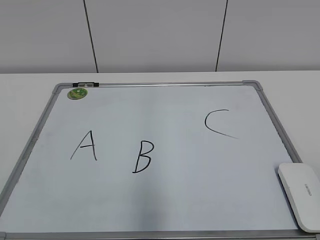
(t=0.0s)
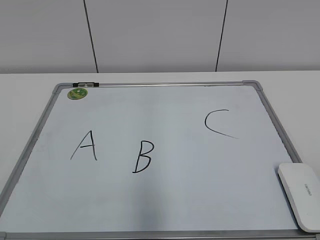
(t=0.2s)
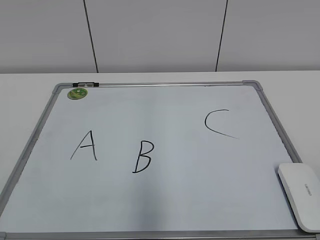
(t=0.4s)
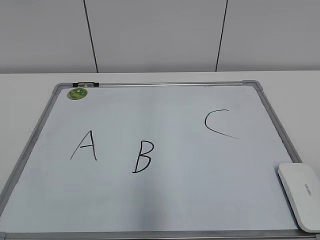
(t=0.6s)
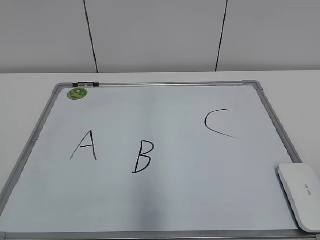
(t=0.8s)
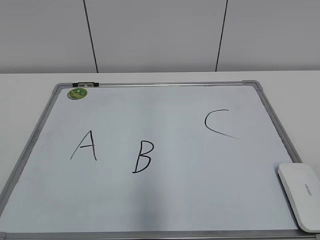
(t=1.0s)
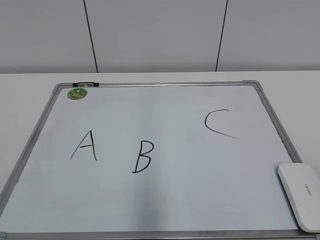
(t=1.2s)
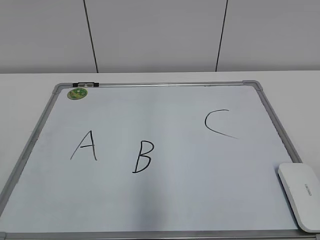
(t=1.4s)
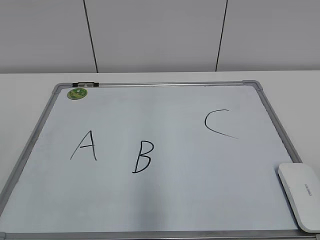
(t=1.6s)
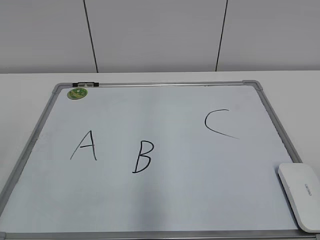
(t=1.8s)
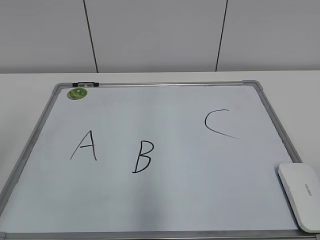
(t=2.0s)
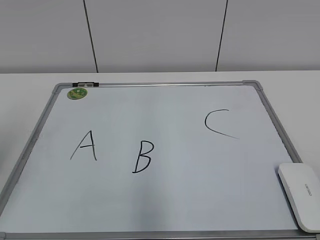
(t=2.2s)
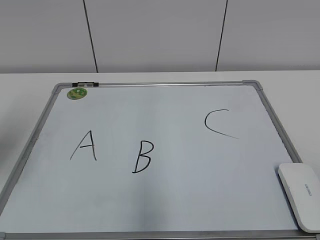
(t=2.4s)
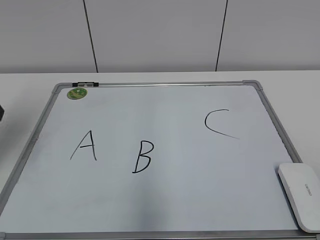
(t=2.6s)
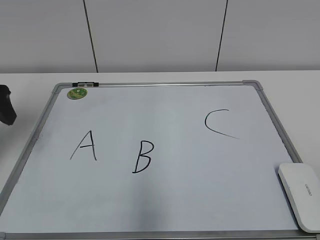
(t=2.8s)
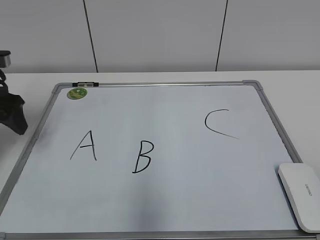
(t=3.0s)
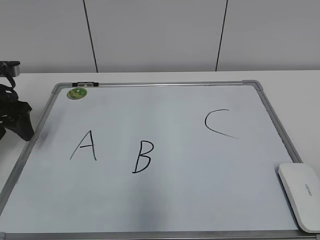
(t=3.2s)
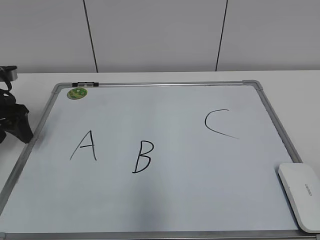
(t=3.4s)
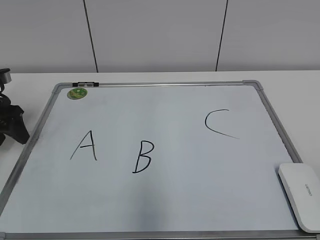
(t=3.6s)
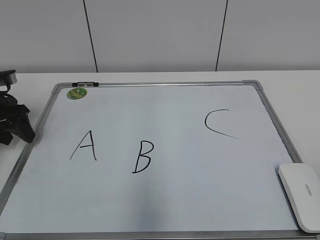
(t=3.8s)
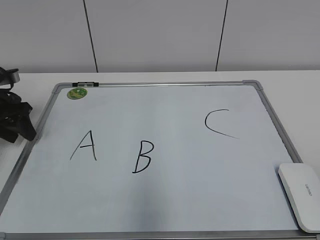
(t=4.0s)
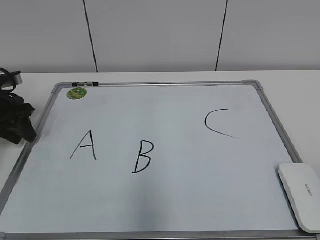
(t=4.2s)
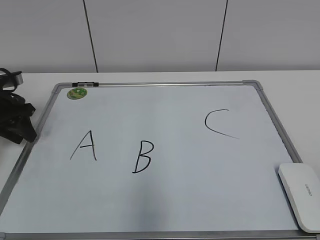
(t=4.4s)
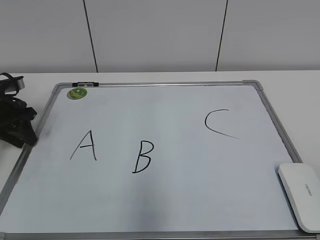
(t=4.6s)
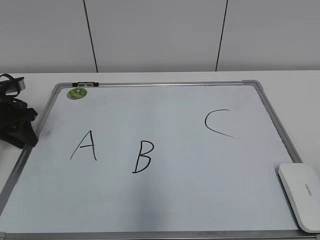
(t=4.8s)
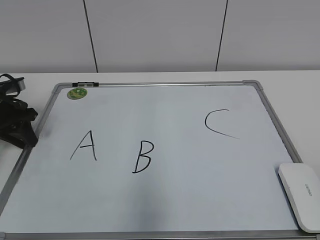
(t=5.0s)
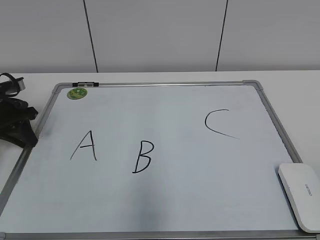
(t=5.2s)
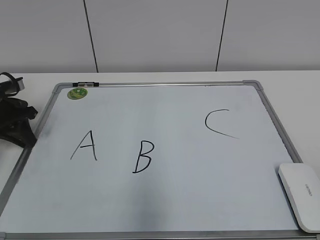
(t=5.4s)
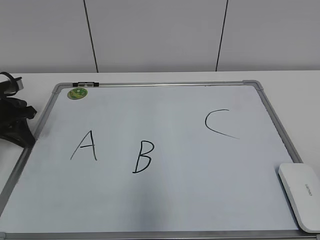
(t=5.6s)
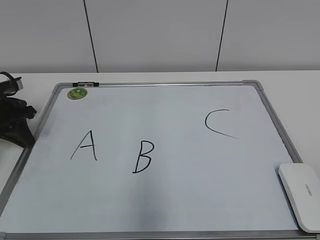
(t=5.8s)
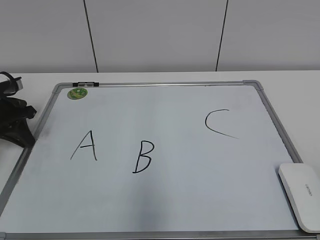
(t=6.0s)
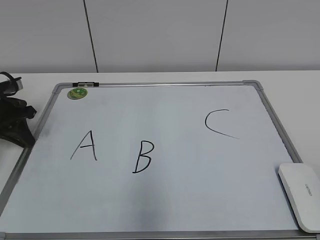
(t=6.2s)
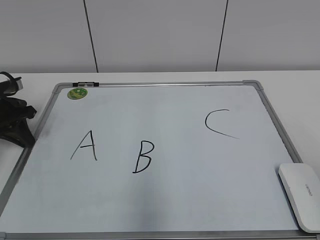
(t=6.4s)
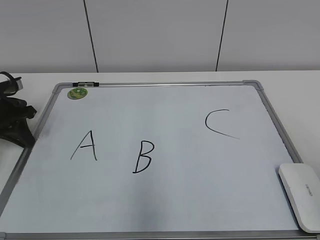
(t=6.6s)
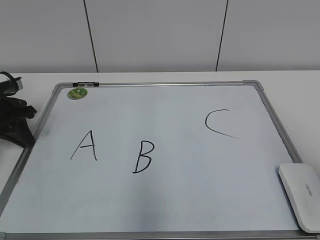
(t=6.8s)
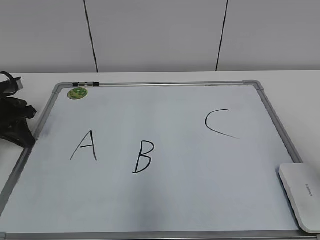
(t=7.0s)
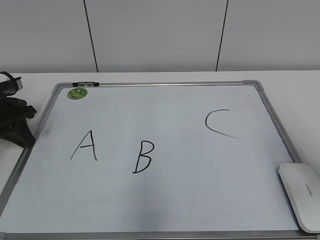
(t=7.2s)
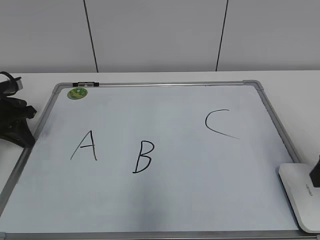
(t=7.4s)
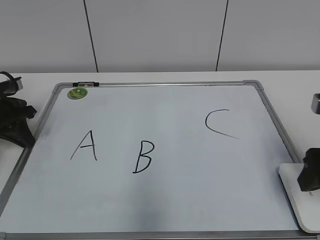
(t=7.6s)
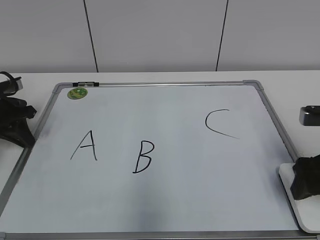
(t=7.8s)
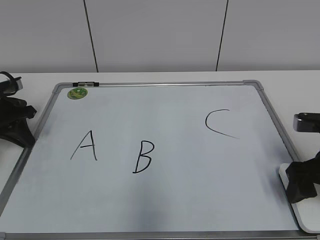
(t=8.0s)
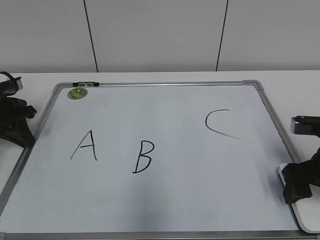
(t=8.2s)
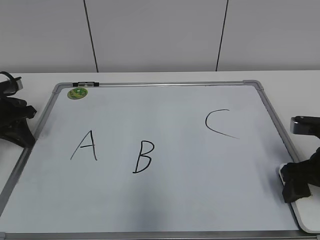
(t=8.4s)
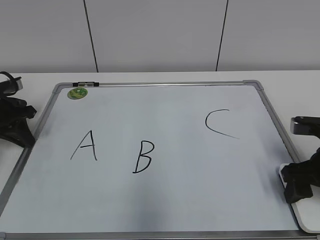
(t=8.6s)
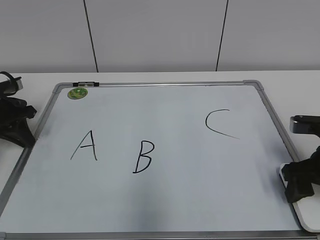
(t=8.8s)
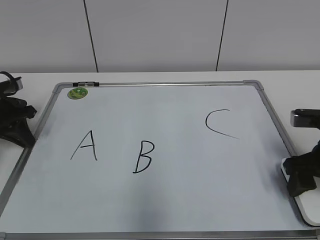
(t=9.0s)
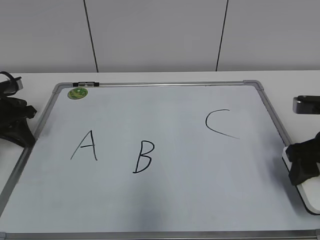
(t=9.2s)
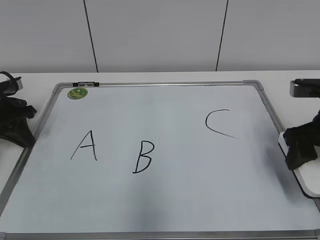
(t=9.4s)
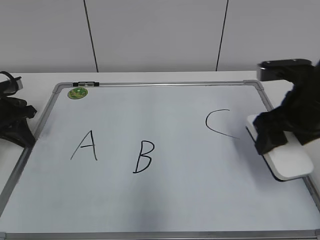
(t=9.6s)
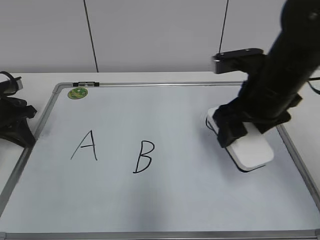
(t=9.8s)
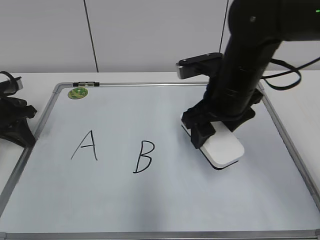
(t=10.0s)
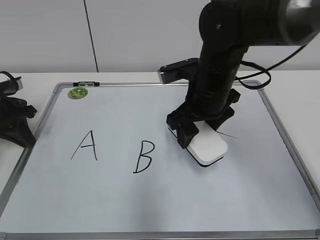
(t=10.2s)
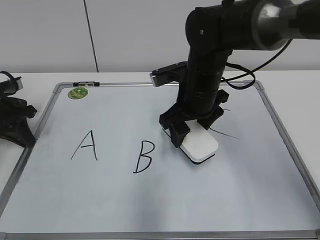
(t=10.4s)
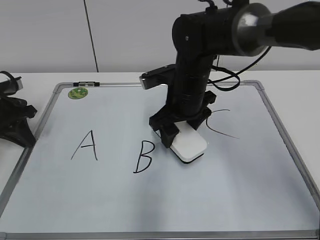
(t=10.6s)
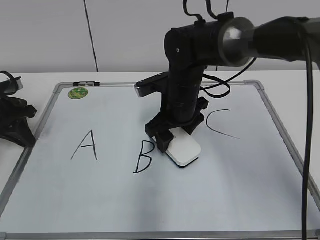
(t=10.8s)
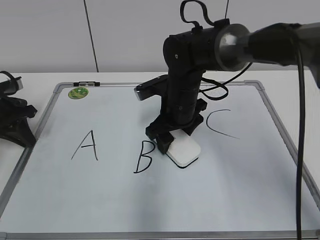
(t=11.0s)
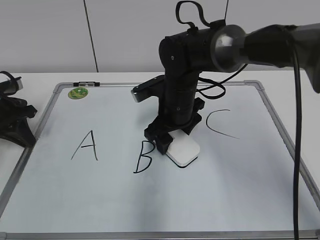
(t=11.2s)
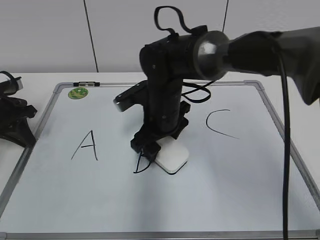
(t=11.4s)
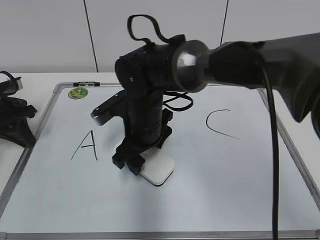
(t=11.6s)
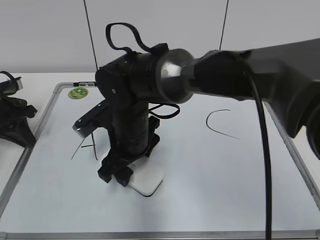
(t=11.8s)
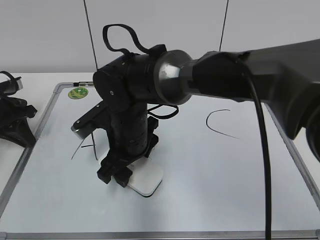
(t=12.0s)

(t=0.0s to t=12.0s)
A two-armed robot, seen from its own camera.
Task of the whole recording: pick up the eraser on the blackboard and erase the letter "B".
Step, t=0.0s - t=5.4s: Hold the drawing board steady with your left hand.
Step, t=5.6s - t=8.4s: Grab the eraser with your right hand.
t=1.6s - t=3.0s: The left gripper moves forward, approximately 30 cm.
t=3.0s - t=4.4s: The left gripper is displaced downward and forward by approximately 10 cm, and closes up.
t=4.4s - t=6.0s: The left gripper closes its fingers.
t=6.0s - t=7.6s: The right gripper shifts approximately 20 cm forward.
t=7.6s - t=9.0s: The right gripper moves downward, some 5 cm.
t=9.0s - t=10.4s: The right gripper moves to the left and forward, roughly 20 cm.
t=10.4s - t=12.0s: The right gripper is displaced to the left by about 10 cm.

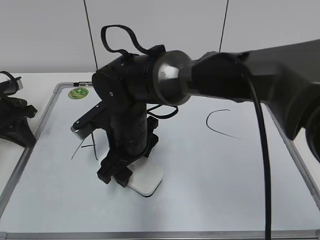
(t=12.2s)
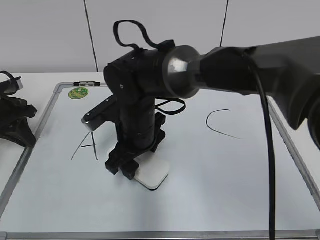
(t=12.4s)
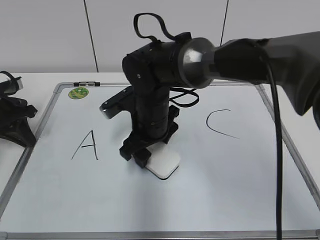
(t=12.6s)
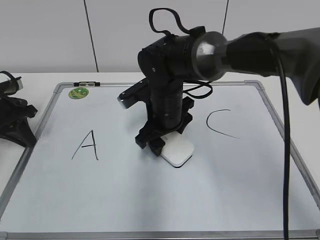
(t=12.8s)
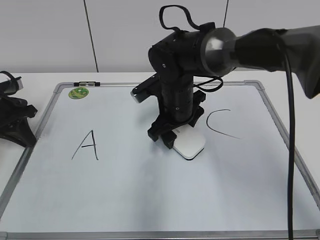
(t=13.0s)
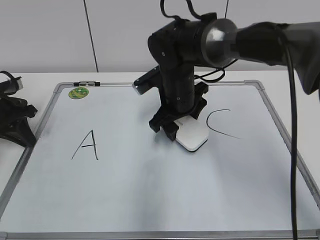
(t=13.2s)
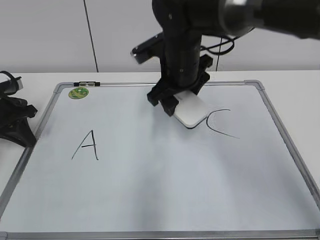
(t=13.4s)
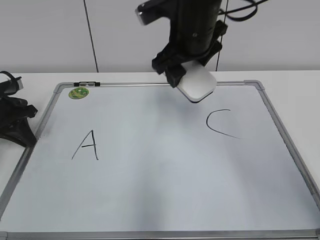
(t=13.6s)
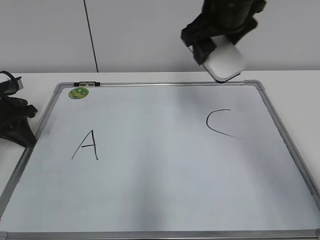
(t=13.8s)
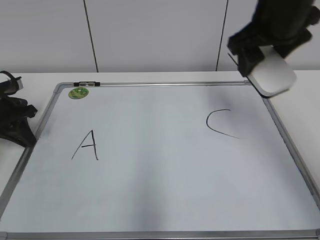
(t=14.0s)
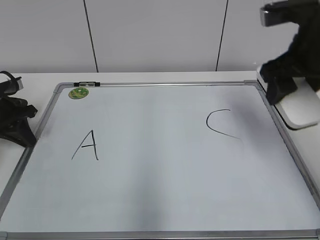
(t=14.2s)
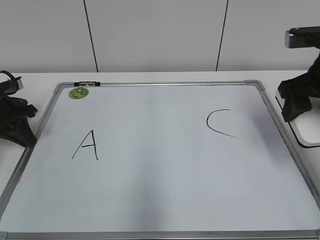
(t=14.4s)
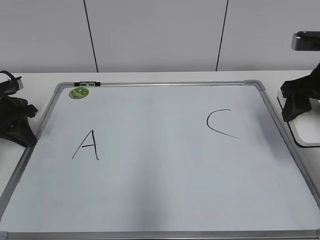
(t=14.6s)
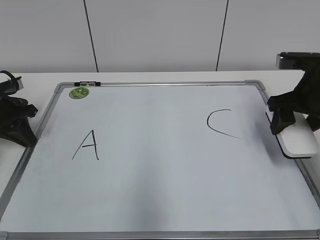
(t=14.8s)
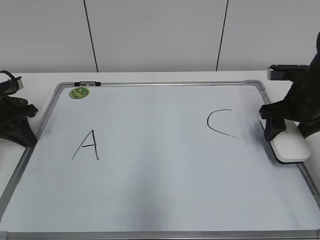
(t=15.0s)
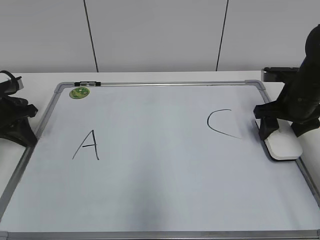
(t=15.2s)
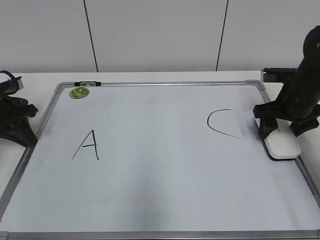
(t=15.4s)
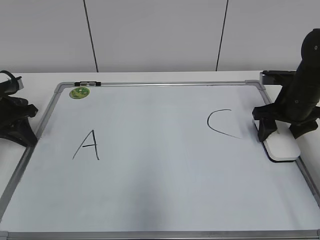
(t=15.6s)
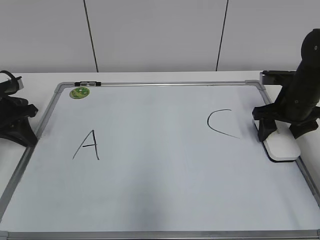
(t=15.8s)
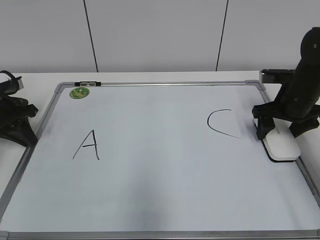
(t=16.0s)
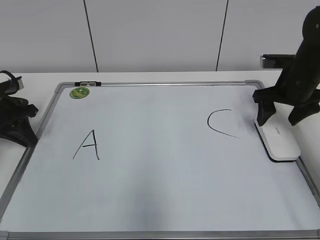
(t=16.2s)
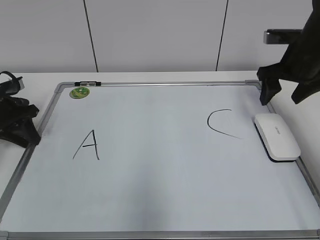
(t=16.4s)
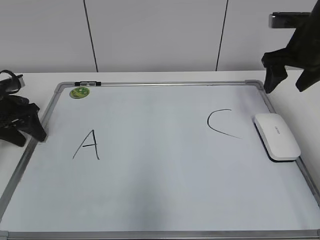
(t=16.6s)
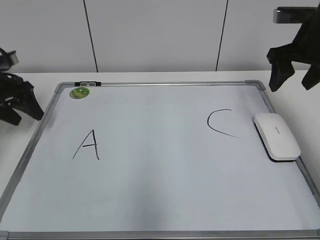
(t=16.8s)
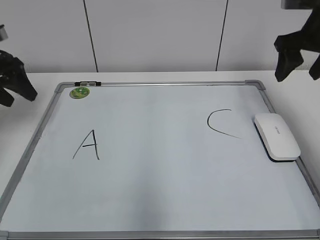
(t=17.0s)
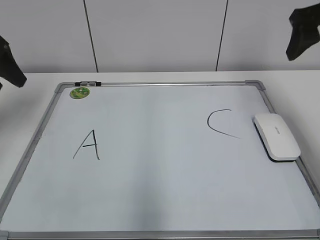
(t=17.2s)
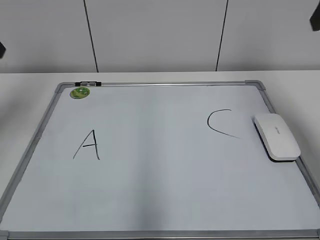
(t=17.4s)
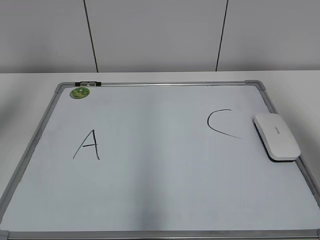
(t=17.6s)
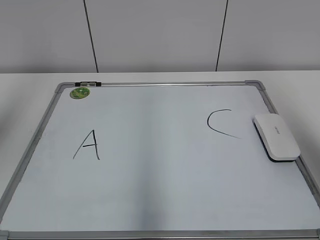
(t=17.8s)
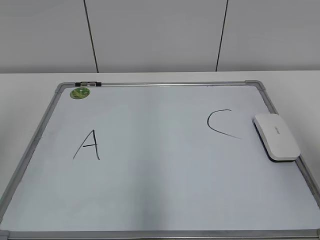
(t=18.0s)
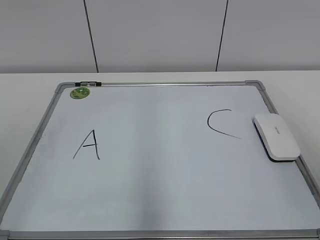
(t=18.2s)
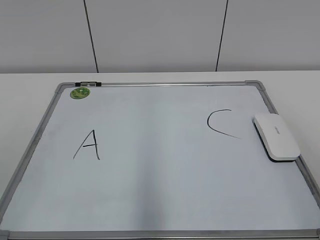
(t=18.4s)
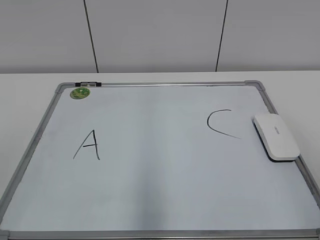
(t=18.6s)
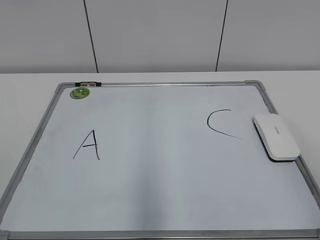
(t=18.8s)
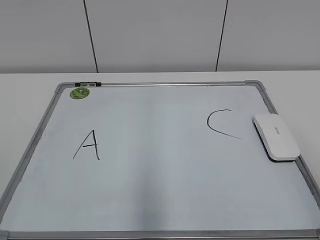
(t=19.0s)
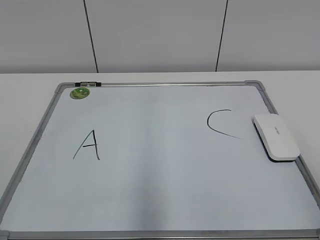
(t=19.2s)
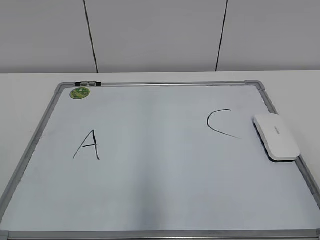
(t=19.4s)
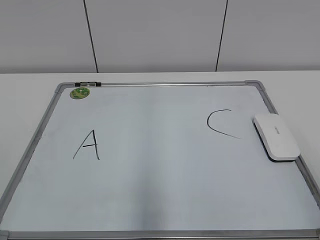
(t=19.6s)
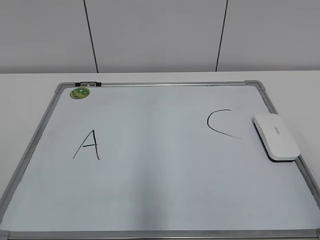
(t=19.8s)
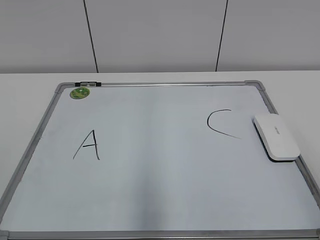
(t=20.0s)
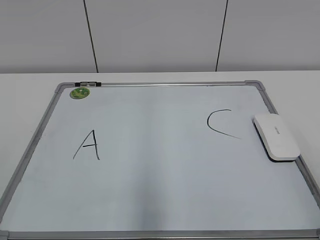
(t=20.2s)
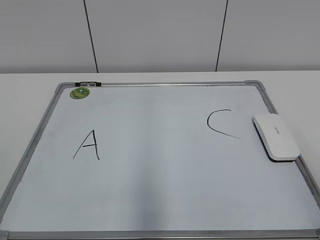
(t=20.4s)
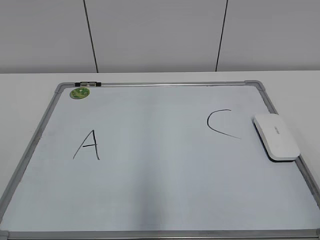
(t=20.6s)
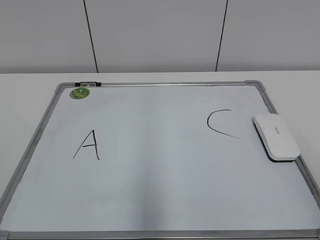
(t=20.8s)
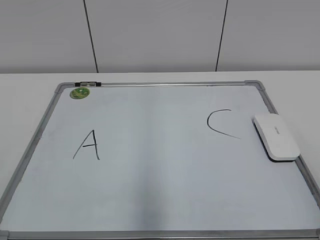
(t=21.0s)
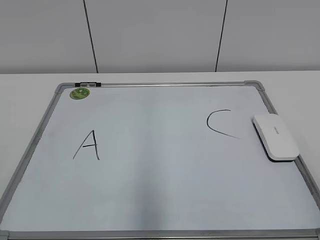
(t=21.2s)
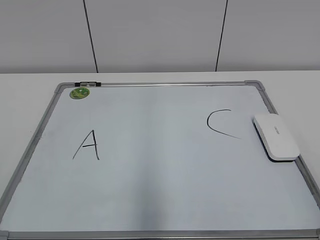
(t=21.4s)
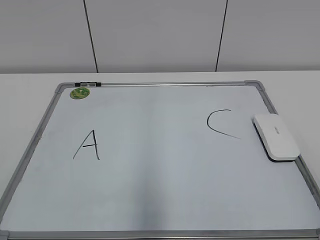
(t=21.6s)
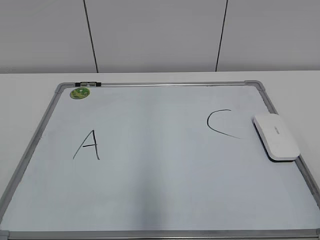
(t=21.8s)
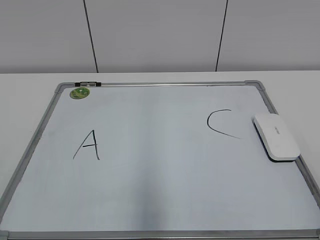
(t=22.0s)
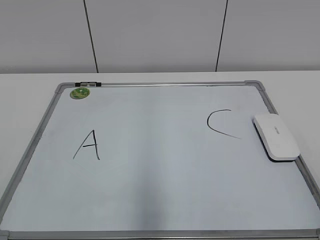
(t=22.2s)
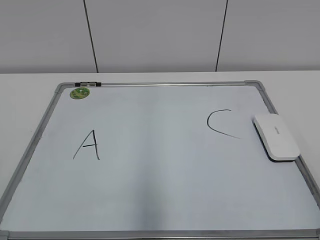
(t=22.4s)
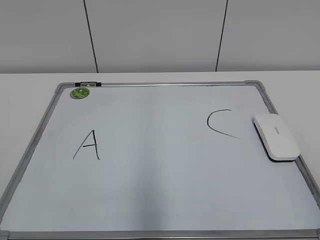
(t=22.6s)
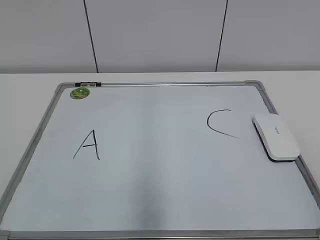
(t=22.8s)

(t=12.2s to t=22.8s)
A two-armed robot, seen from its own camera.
Task of the whole recording: pick up the eraser on the blackboard and erase the letter "B".
Step, t=13.0s - t=15.6s: Put down the eraser with your right hand.
t=12.2s - t=13.8s: The right gripper travels upward and to the right by roughly 20 cm.
t=13.8s - t=15.2s: The right gripper travels to the right and downward by approximately 25 cm.
t=15.2s - t=16.8s: The right gripper goes approximately 10 cm upward, while the left gripper opens.
t=16.8s - t=18.2s: The grippers both shift backward and upward by some 35 cm.
t=21.2s - t=22.8s: Both grippers stay put.
